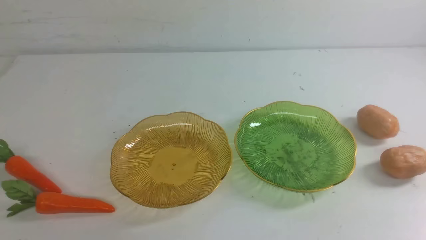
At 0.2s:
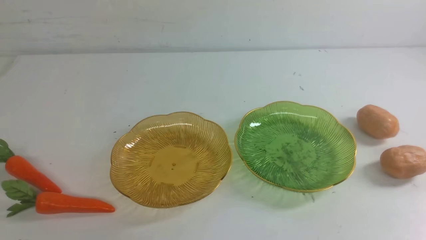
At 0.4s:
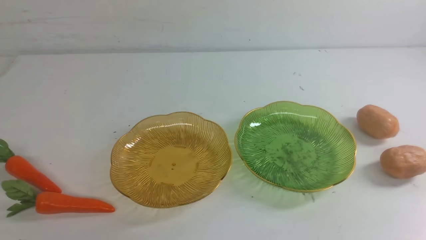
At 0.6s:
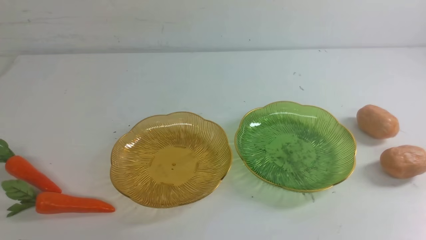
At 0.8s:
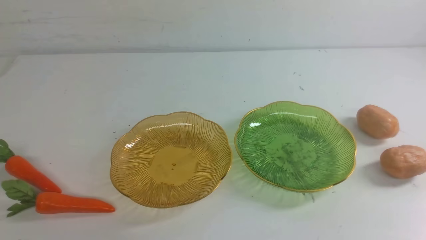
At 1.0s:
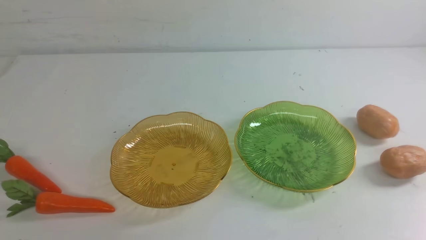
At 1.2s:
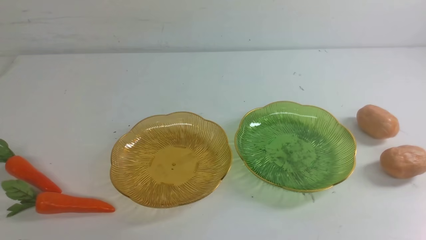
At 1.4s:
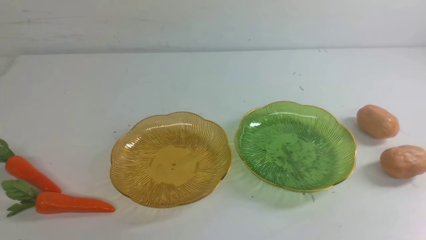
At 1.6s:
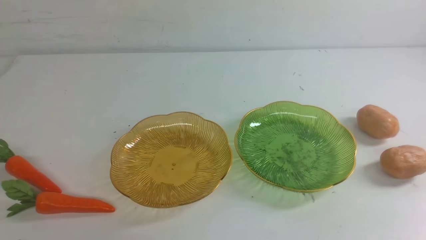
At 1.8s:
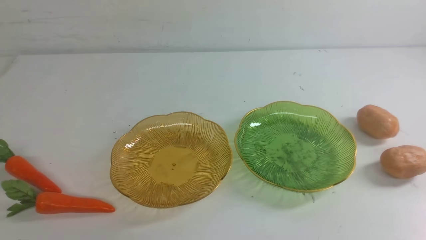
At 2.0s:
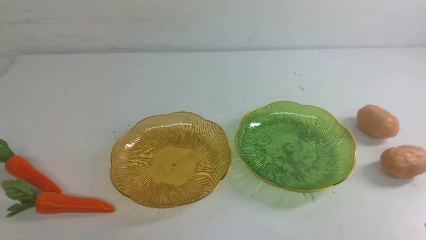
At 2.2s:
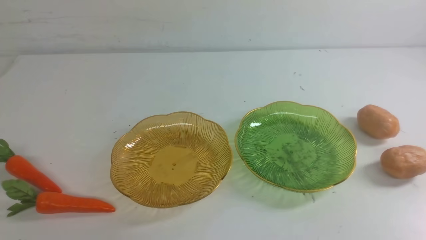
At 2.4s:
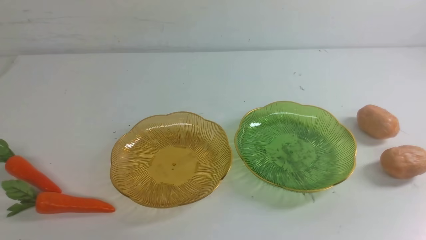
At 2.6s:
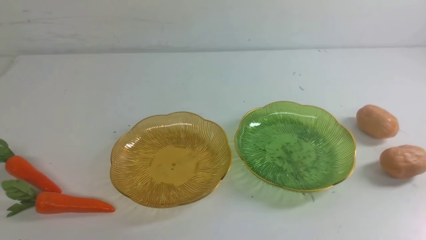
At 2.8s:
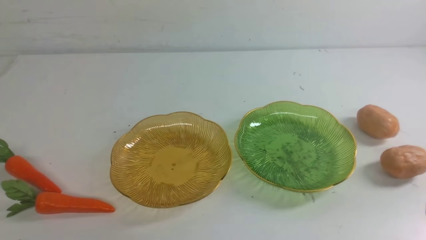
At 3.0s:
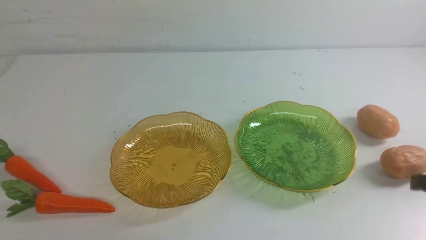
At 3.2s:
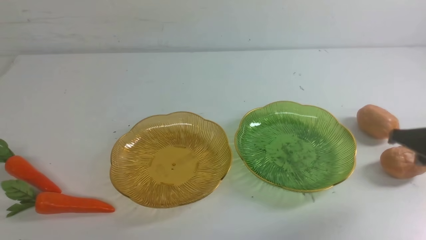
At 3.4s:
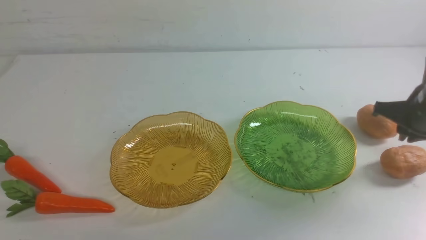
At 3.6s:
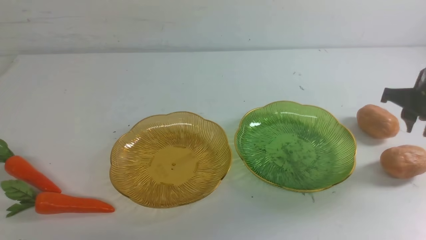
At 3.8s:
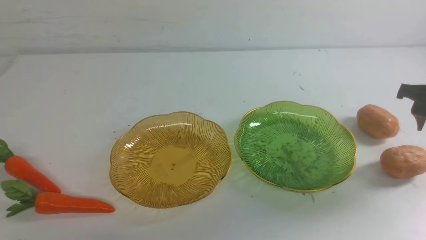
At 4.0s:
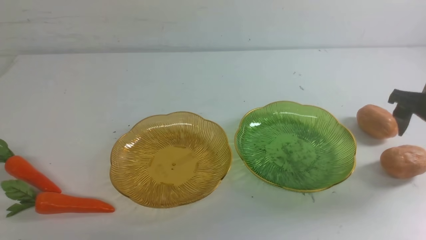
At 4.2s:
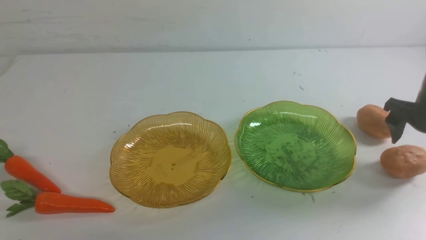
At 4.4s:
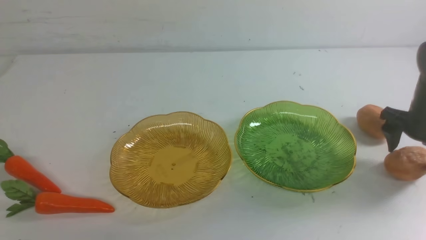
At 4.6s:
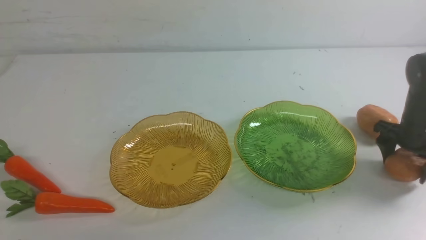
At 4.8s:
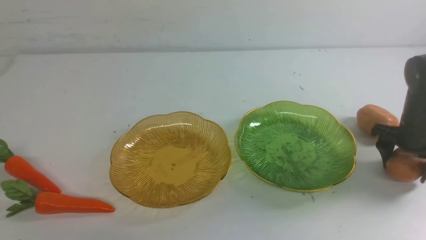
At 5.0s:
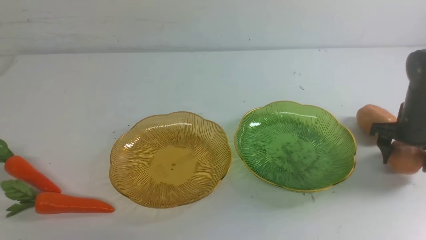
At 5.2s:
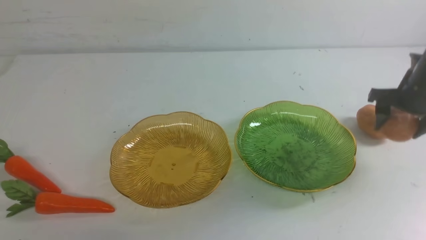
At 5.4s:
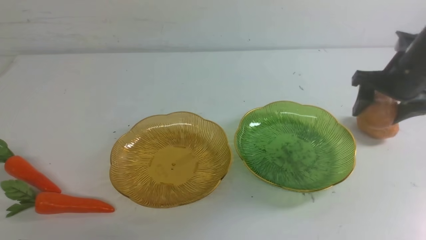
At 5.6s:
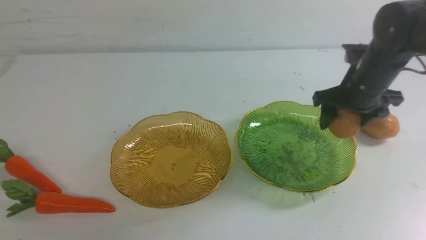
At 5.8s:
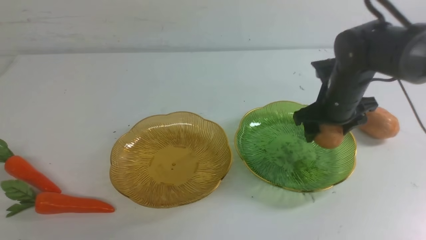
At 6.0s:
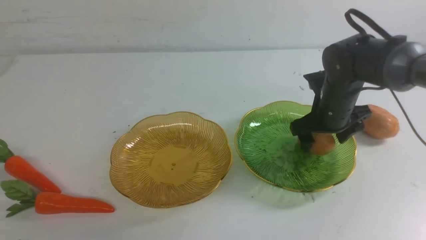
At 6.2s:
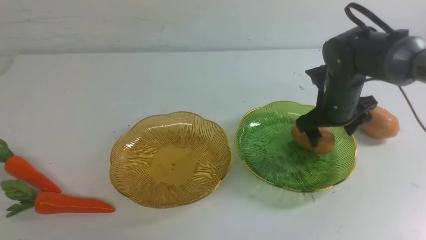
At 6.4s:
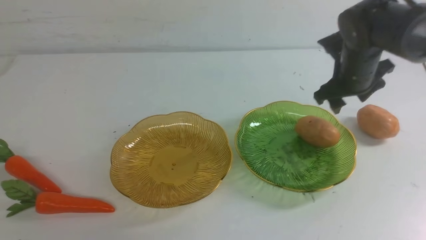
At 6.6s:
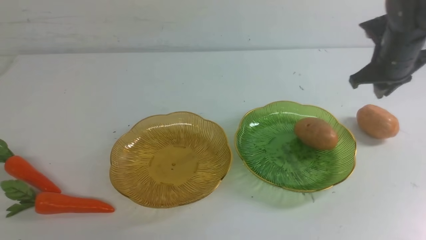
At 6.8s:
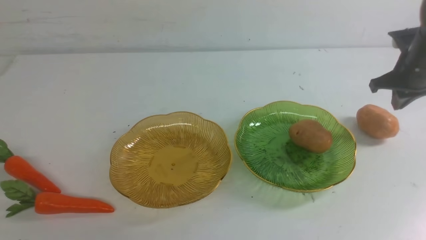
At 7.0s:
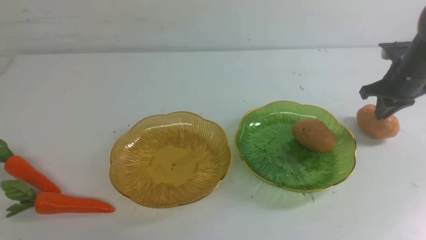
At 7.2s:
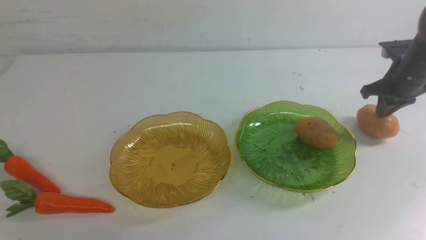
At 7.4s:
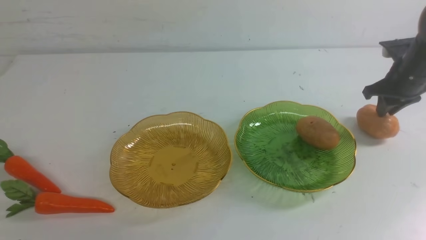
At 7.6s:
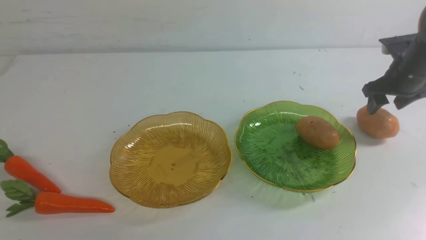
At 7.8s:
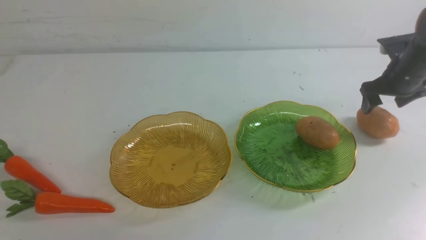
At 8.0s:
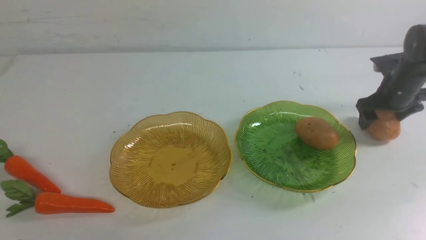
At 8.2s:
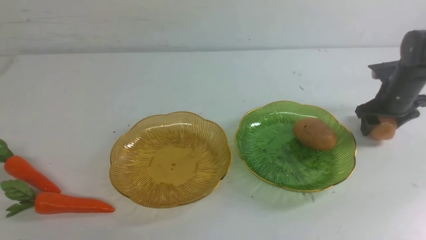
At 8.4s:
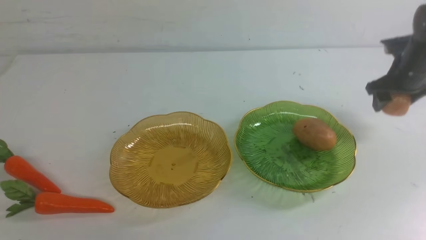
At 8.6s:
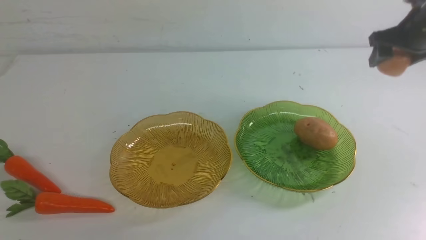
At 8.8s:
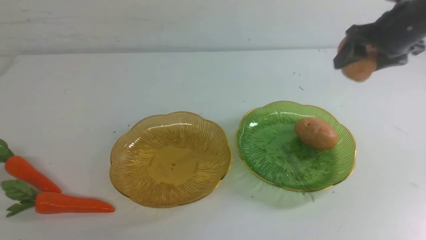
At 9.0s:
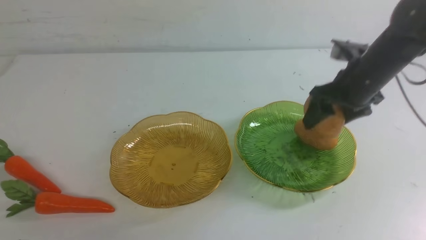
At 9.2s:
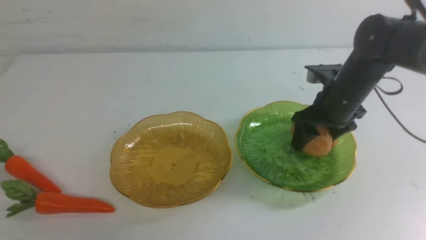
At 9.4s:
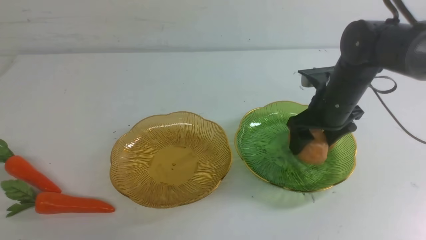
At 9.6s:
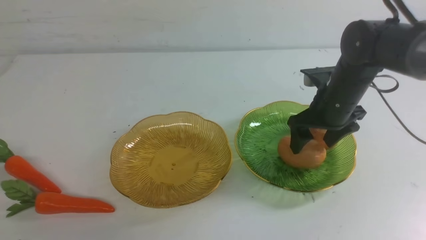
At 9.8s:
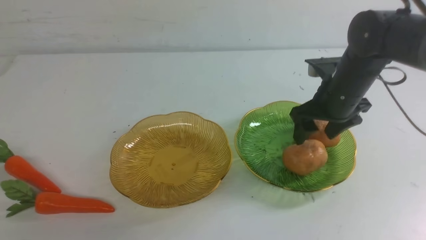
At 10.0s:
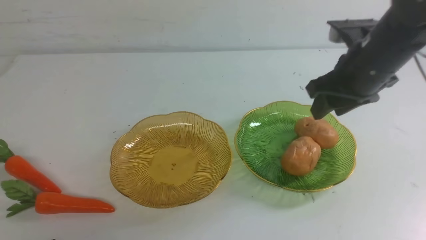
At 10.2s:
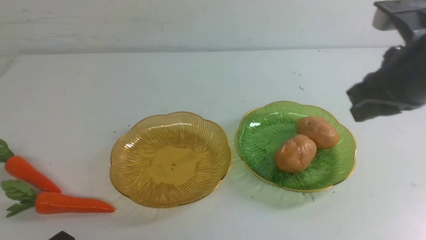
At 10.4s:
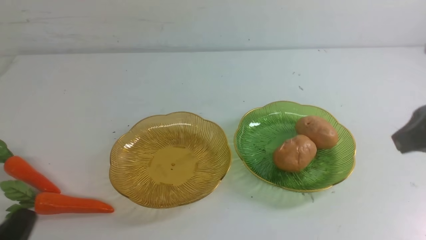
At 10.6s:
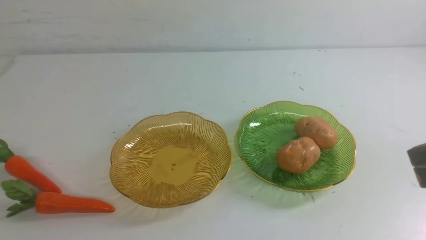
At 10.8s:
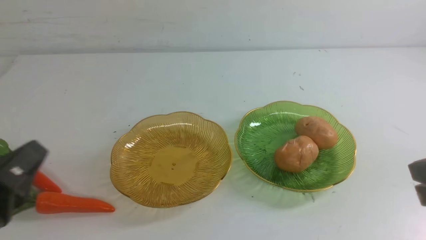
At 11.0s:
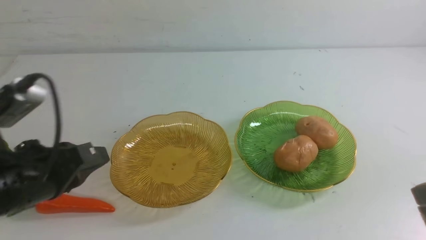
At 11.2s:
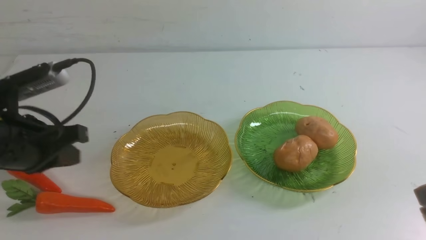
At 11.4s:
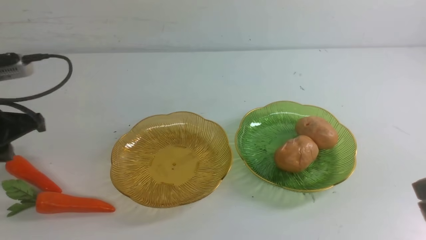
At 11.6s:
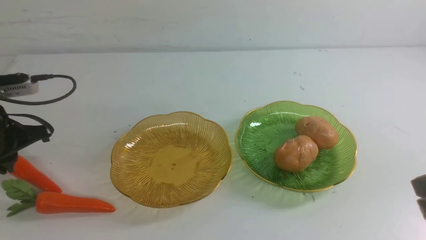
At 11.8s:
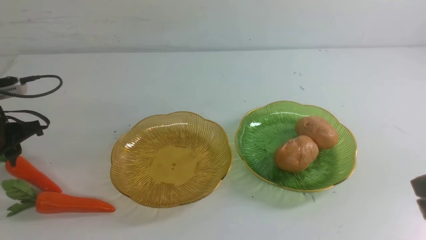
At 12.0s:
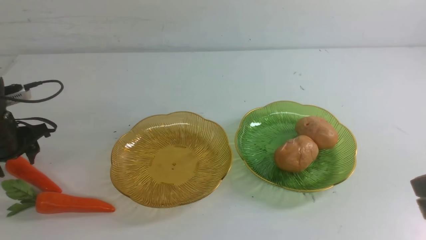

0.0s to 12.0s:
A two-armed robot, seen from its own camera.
Step, 0.0s to 9.6s: Grab a potato with your right arm and put it on the right plate.
3.0s to 4.4s: The right gripper moves forward and downward, approximately 20 cm, and opens up.
4.4s to 6.0s: The right gripper goes roughly 15 cm to the left.
6.0s to 7.6s: The right gripper goes roughly 15 cm to the right and forward, and closes.
7.6s to 9.0s: The right gripper shifts about 10 cm to the left and upward.
9.0s to 10.4s: The right gripper goes about 20 cm backward and upward, and closes.
10.4s to 12.0s: The left gripper goes approximately 25 cm forward, and opens; the right gripper goes some 5 cm backward.

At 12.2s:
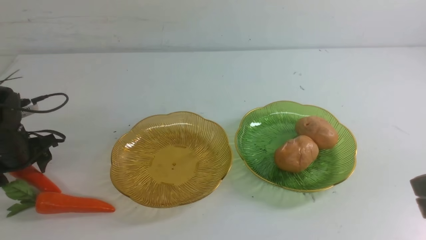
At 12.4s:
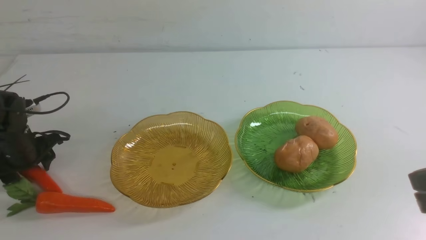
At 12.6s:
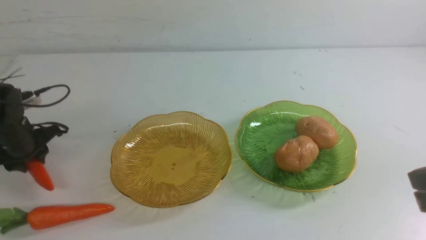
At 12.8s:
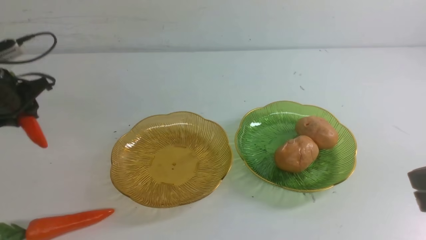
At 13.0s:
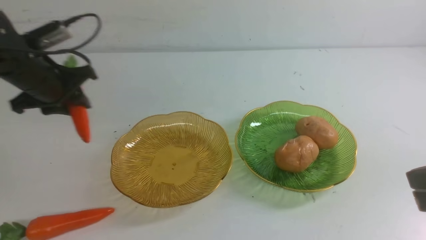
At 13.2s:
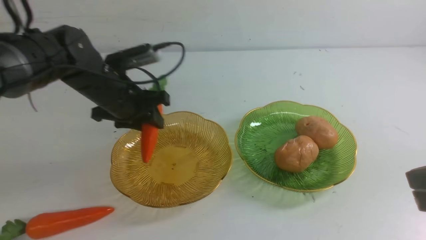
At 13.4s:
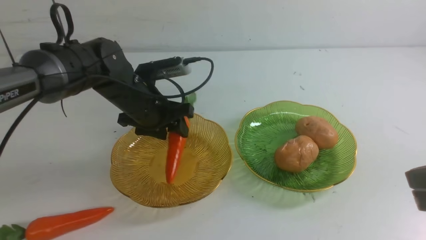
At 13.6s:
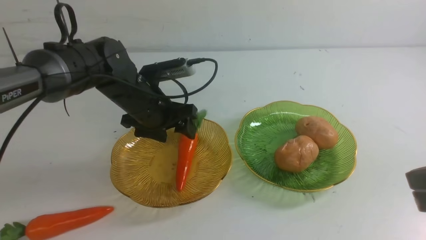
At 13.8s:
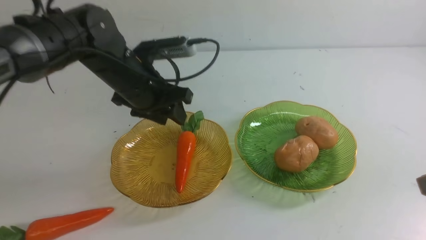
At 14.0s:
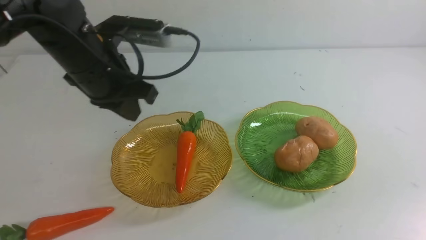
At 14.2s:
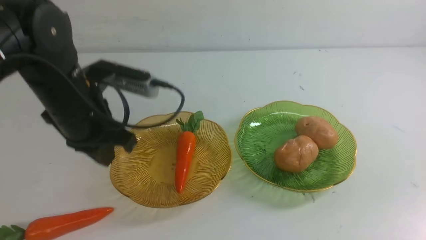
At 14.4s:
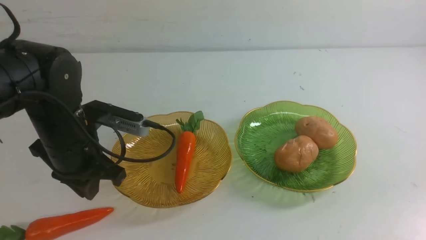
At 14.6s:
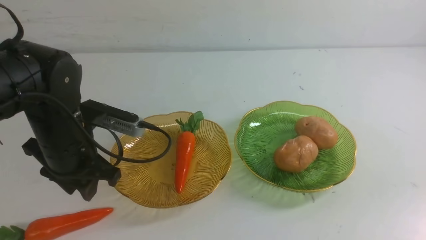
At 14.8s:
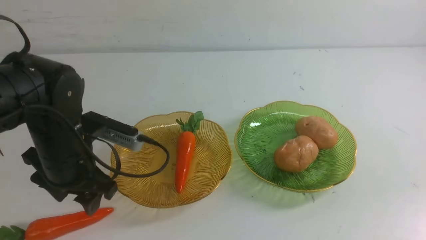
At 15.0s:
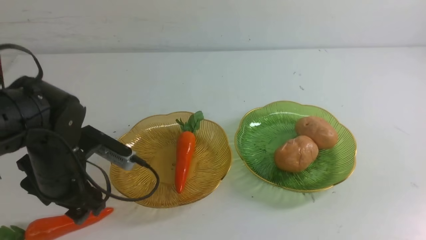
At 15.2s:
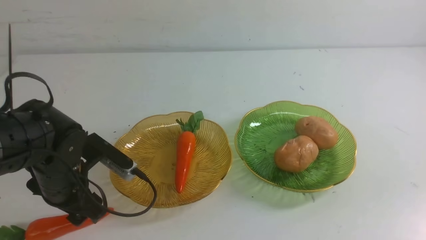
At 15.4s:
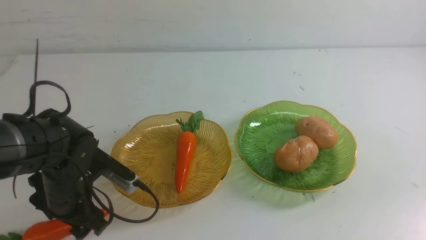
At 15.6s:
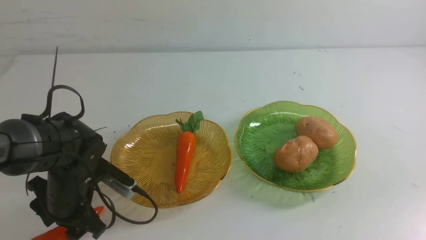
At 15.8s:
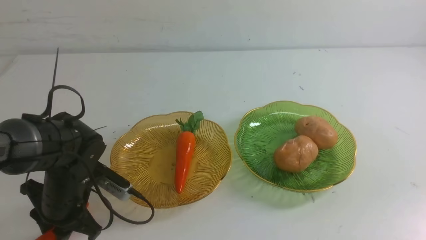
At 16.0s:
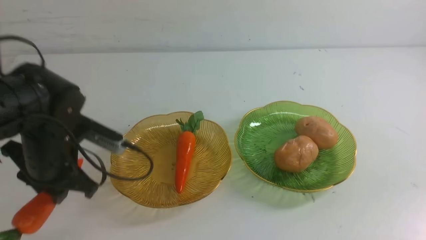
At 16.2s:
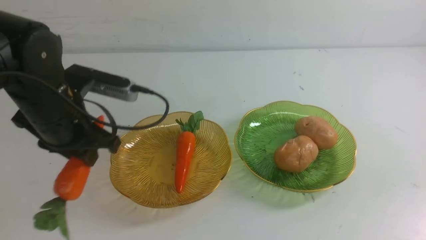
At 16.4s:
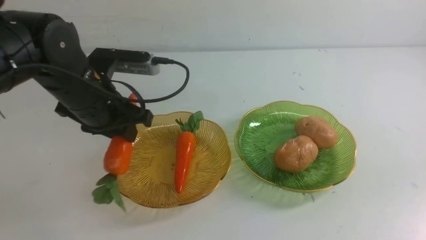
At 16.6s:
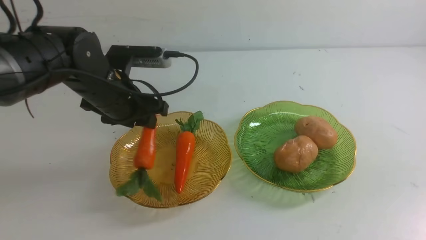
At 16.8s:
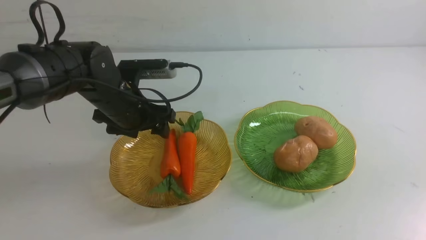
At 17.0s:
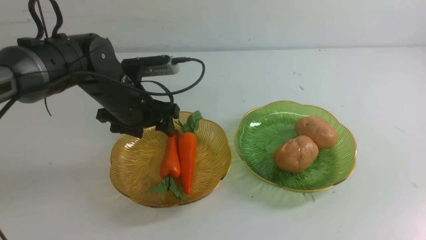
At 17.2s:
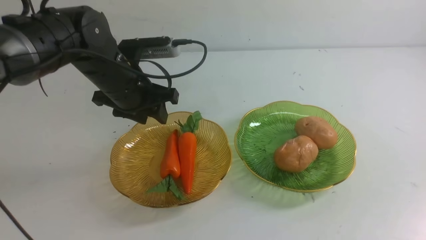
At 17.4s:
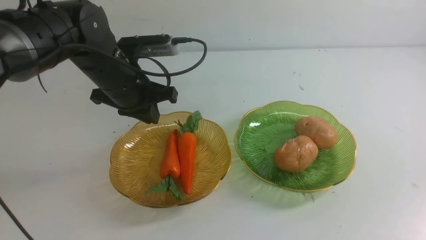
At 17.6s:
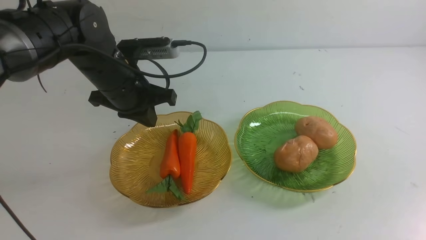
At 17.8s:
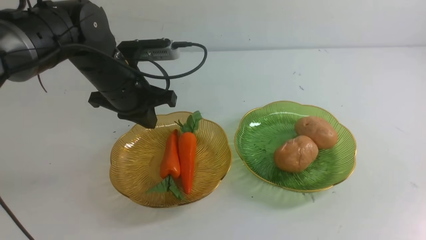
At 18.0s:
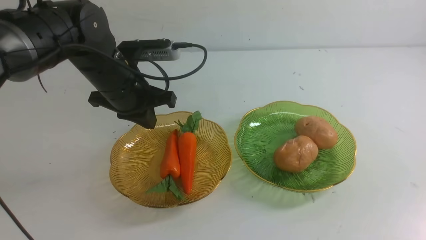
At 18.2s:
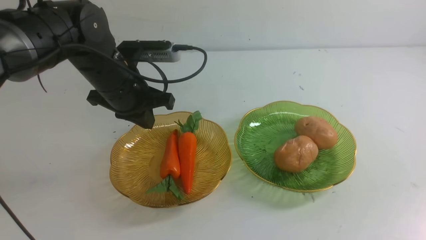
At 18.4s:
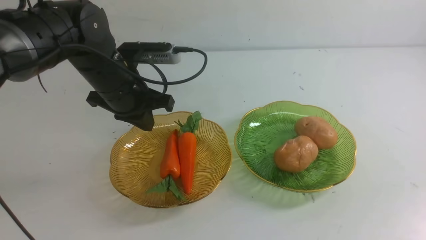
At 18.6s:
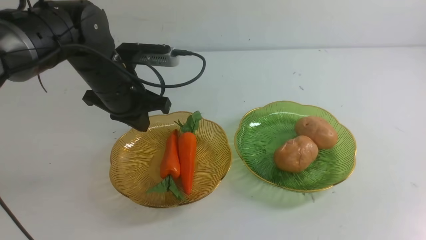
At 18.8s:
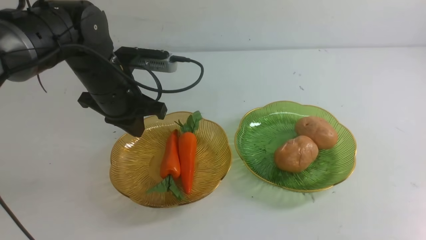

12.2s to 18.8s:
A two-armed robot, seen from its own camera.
Step, 12.2s to 16.6s: use the left arm to grab a carrot and put it into the left plate.
12.2s to 13.8s: The left gripper travels to the right and upward by approximately 25 cm, and closes.
13.8s to 15.4s: The left gripper shifts approximately 20 cm downward, backward and to the left, and opens.
15.4s to 17.2s: The right gripper goes some 5 cm backward; the left gripper moves upward, forward and to the right, about 20 cm, and closes.
17.2s to 18.8s: The right gripper is displaced downward by some 15 cm. The left gripper closes.
